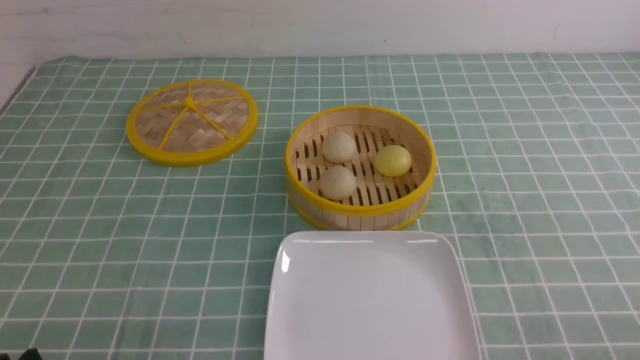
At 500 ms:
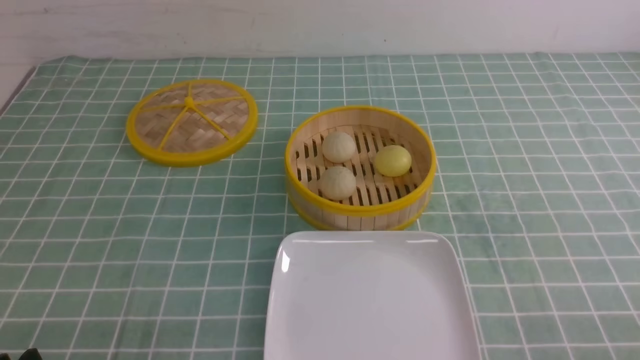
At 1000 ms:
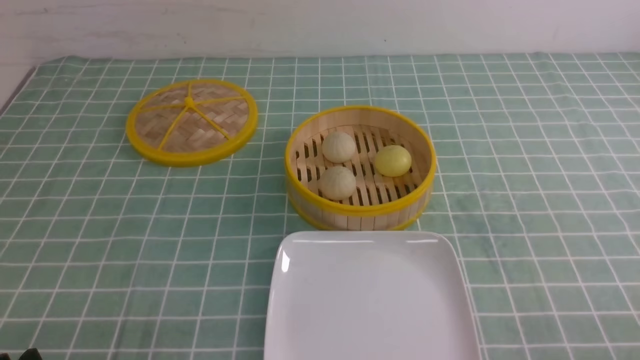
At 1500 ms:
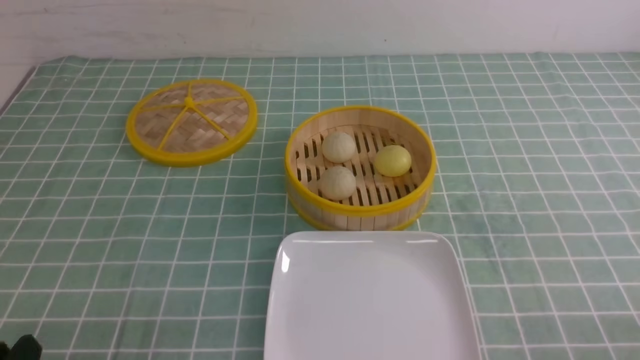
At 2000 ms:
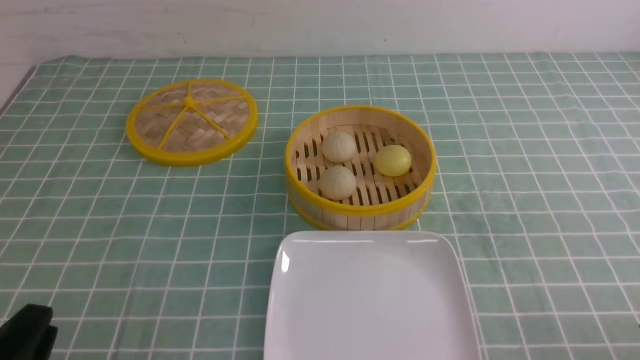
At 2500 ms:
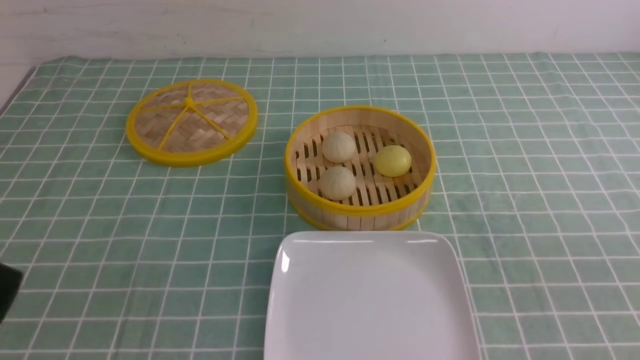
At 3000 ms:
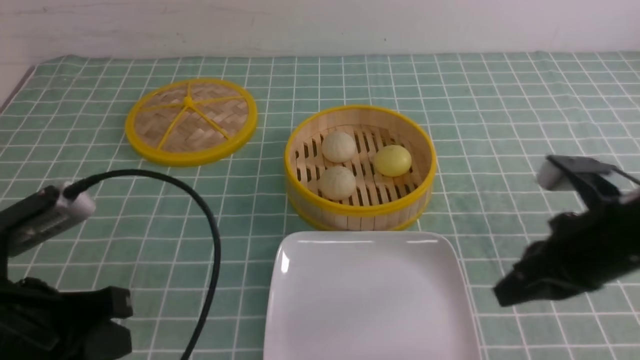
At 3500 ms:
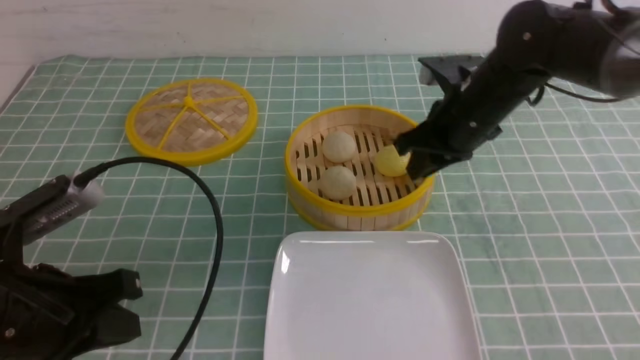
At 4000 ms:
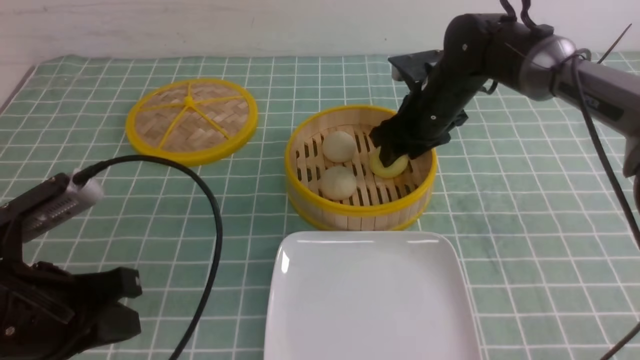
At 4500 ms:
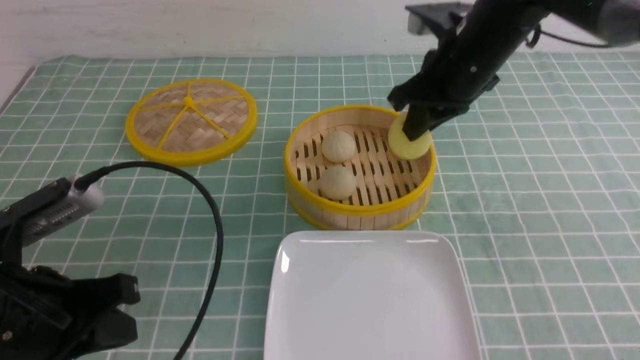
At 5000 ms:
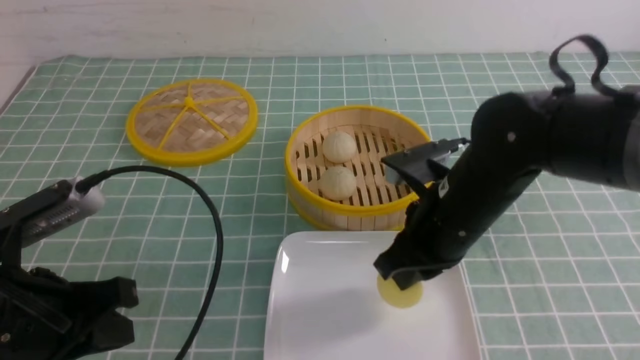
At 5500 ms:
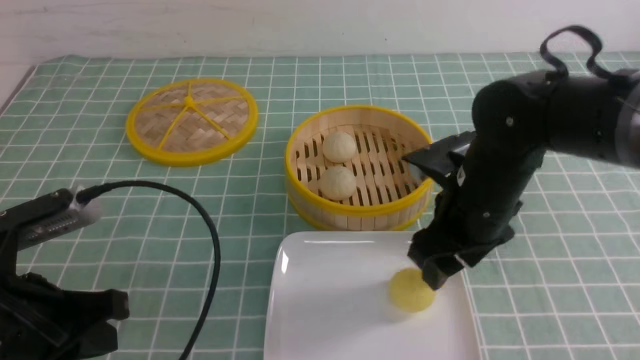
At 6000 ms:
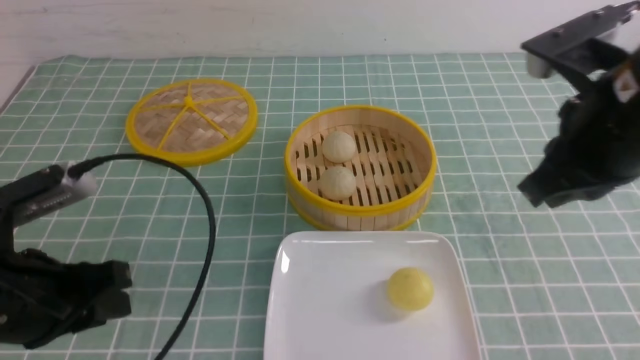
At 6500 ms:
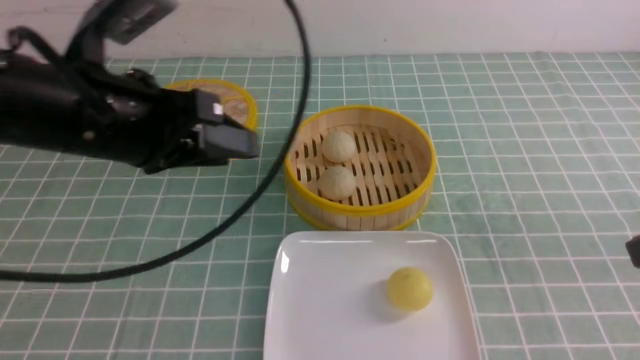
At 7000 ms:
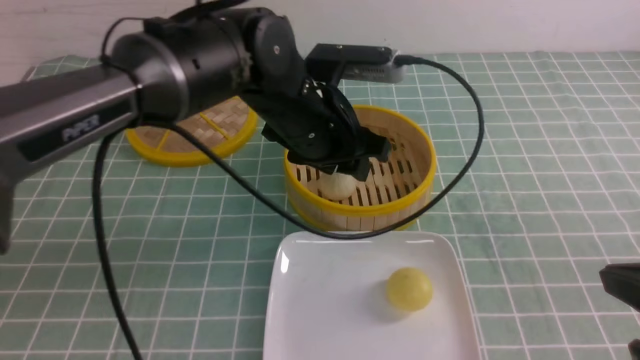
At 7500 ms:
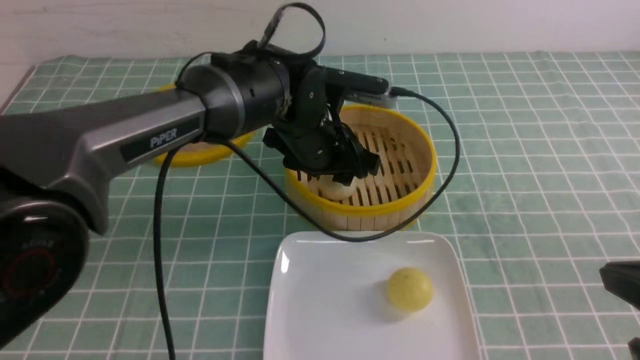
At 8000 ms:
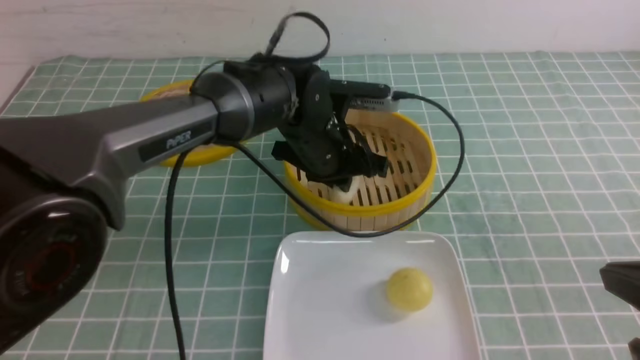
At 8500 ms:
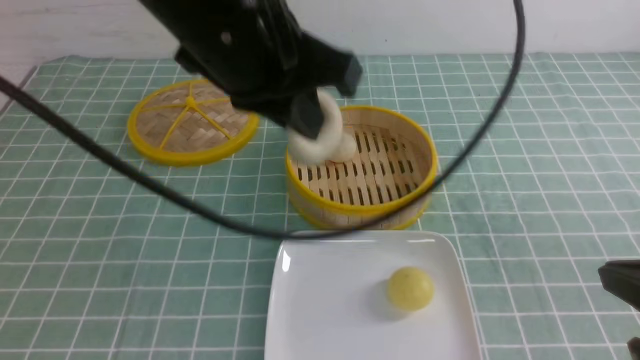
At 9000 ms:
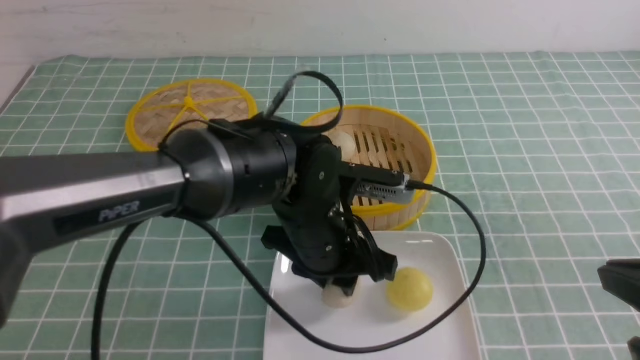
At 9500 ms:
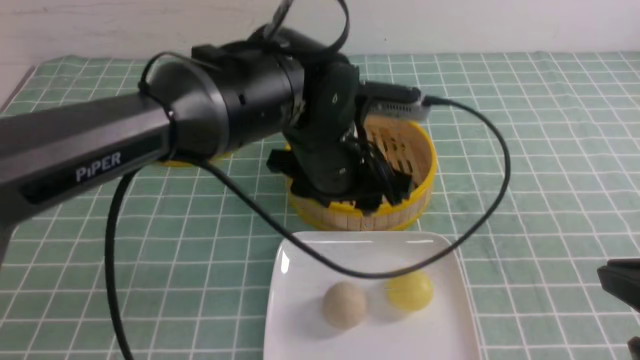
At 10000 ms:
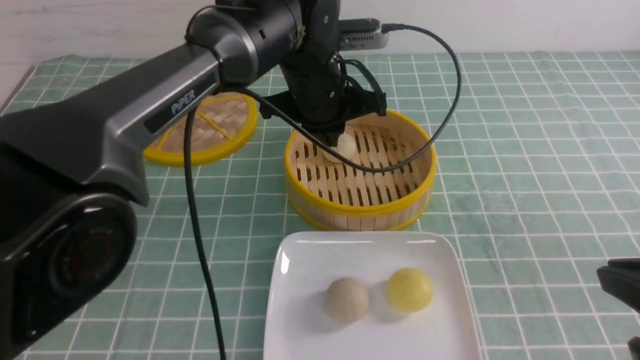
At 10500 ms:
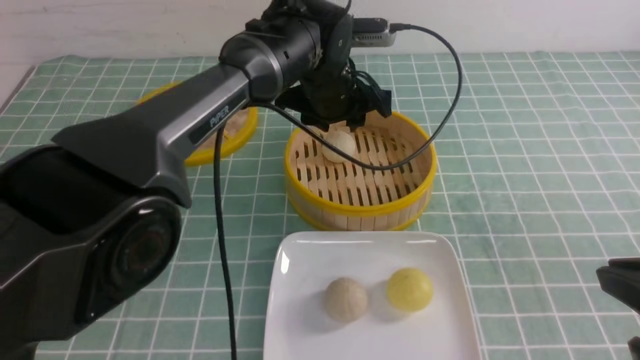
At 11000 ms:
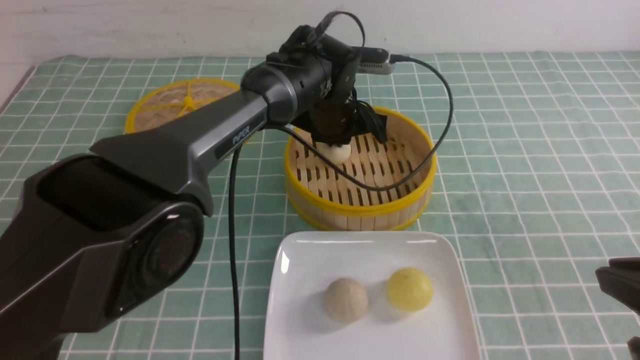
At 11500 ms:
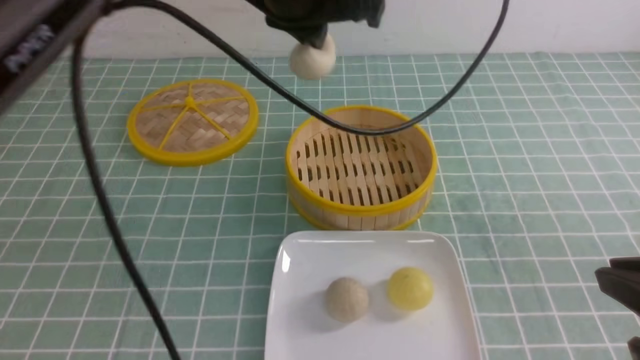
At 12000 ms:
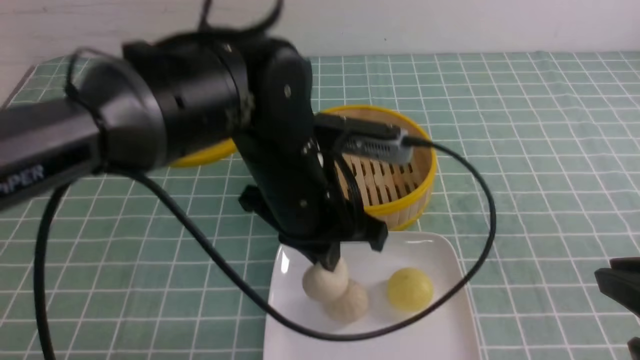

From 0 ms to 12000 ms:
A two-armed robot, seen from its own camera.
Step, from 0 ms to 4000 ms: use the right arm to grab the steamed stuffed bun that is closest to it.
Step, from 4500 ms to 5000 ms: use the right arm to put the steamed stuffed bun into the plate.
Step, from 5500 ms to 7500 ms: use the left arm to grab the steamed stuffed bun that is closest to it.
Step, from 8000 ms to 9000 ms: use the left arm to put the steamed stuffed bun into the plate.
Step, from 9500 ms to 11000 ms: use the left arm to grab the steamed stuffed bun that is closest to it.
From 2000 ms to 4000 ms: The right gripper shifts roughly 40 cm forward and to the left, and closes, then opens again. Meanwhile the left gripper heads forward and upward, covering roughly 10 cm, and closes up.
From 4000 ms to 6000 ms: The left gripper opens up. The right gripper travels backward and upward by approximately 30 cm, and closes up.
From 6000 ms to 8000 ms: The right gripper travels backward, downward and to the right by some 15 cm. The left gripper heads to the right and forward, covering some 30 cm, and opens, then closes once more.
From 8000 ms to 10000 ms: The left gripper goes up and down, about 15 cm each way, reversing 2 times, and opens and closes again.
From 10000 ms to 12000 ms: The left gripper swings up and down, roughly 15 cm each way, with 2 reversals, and opens, then closes again.

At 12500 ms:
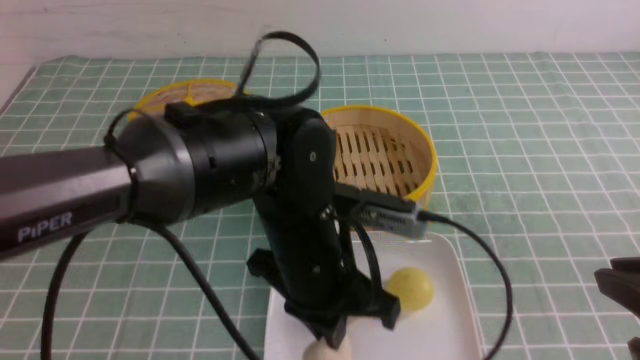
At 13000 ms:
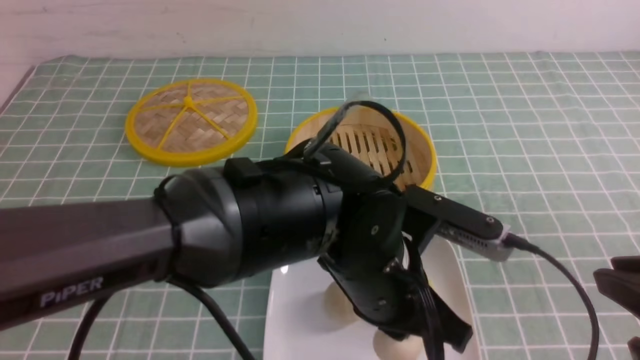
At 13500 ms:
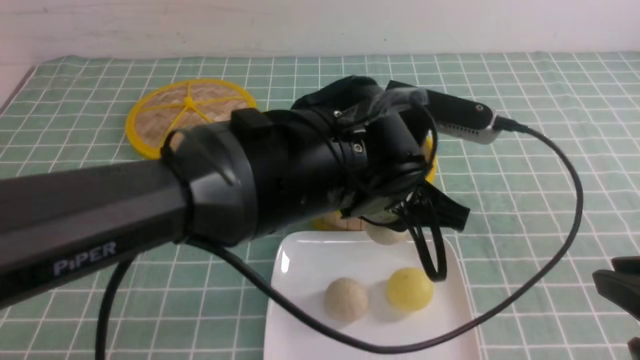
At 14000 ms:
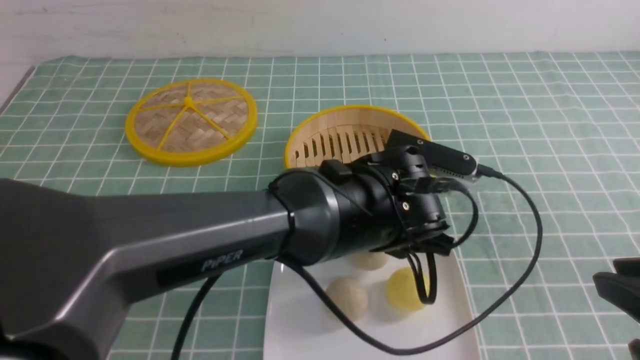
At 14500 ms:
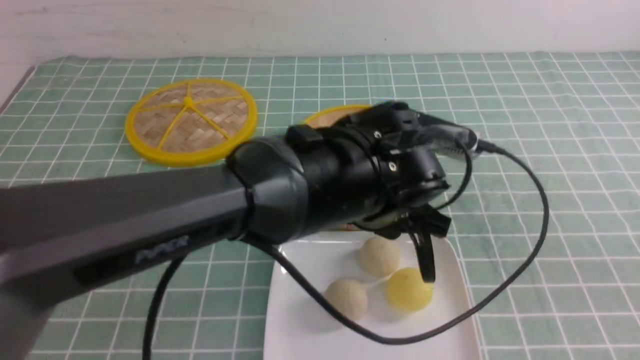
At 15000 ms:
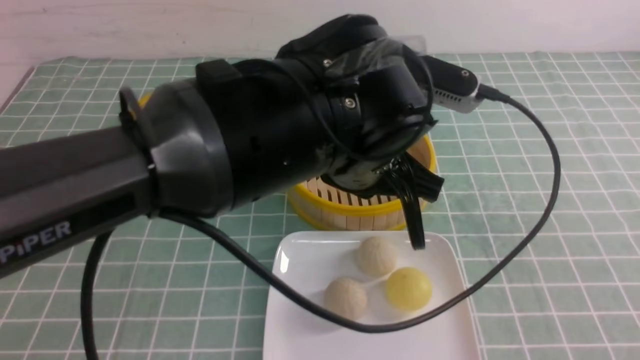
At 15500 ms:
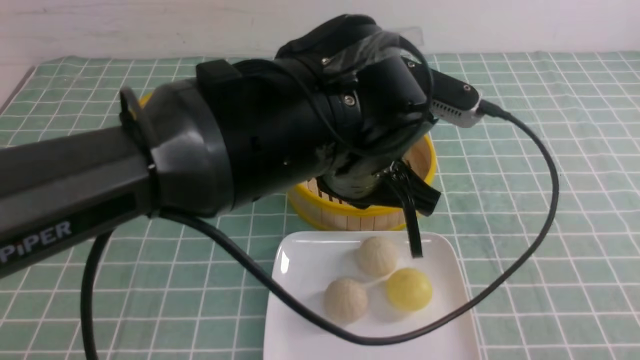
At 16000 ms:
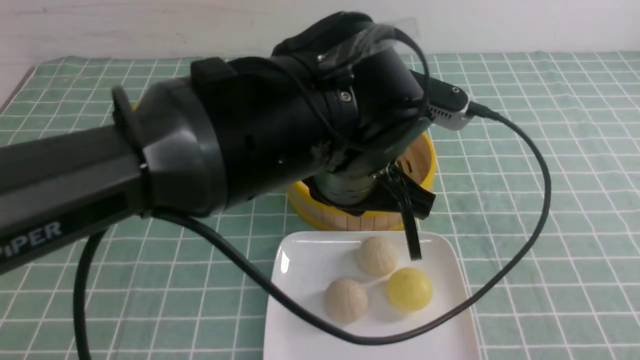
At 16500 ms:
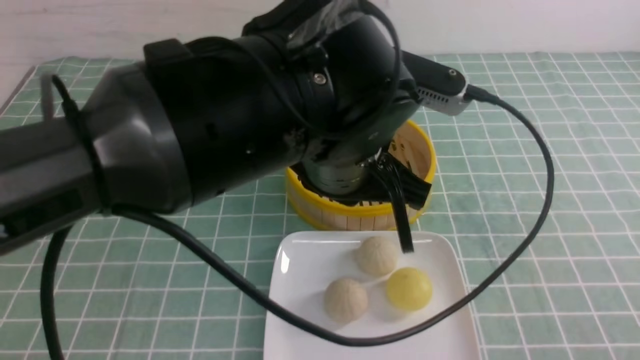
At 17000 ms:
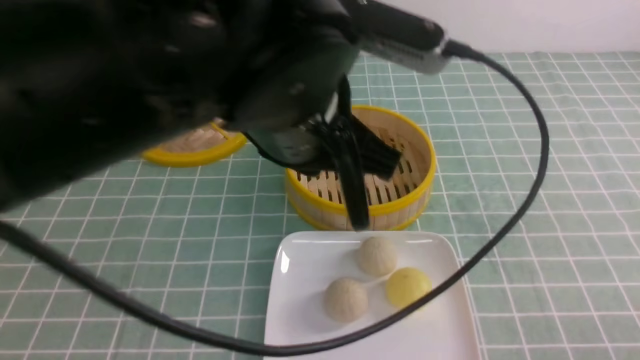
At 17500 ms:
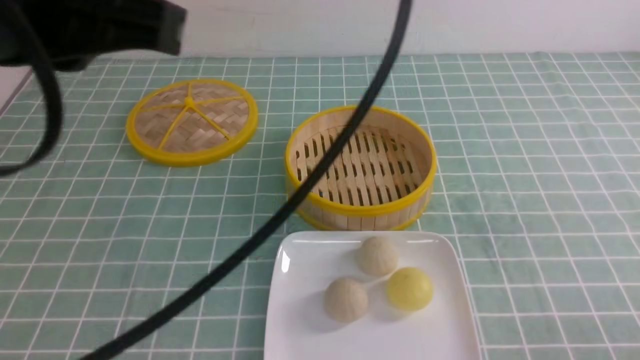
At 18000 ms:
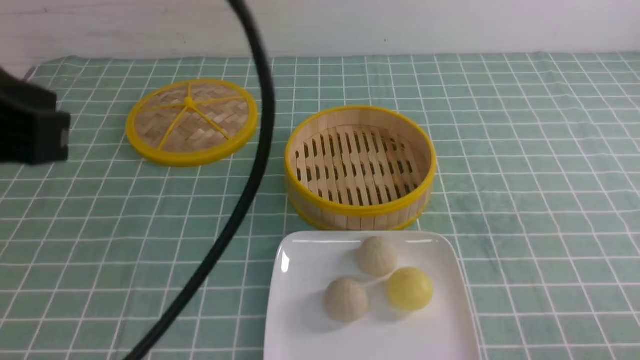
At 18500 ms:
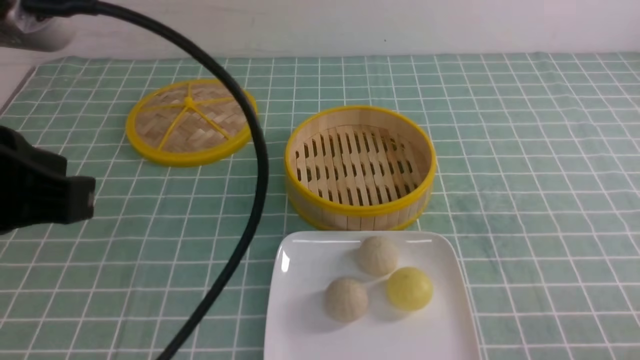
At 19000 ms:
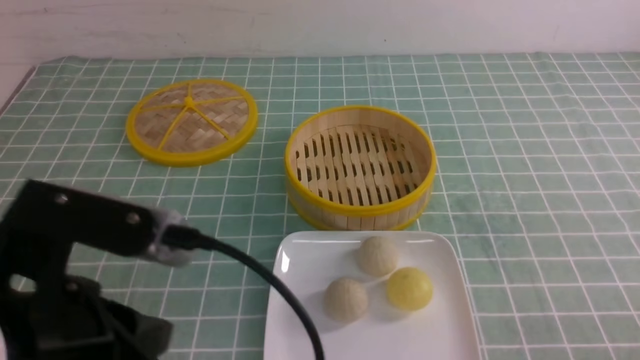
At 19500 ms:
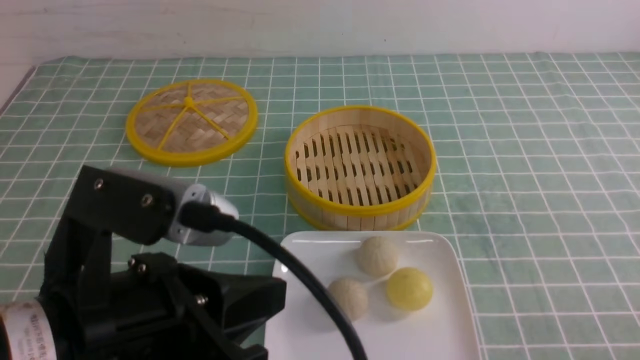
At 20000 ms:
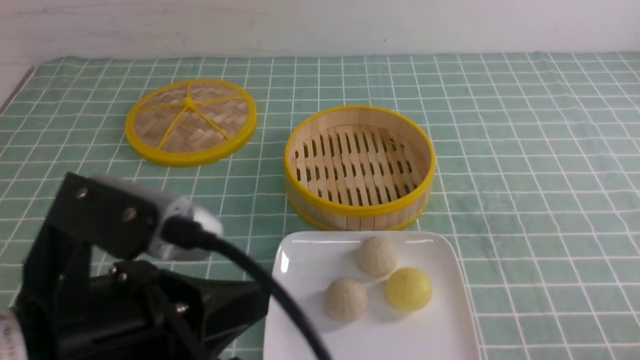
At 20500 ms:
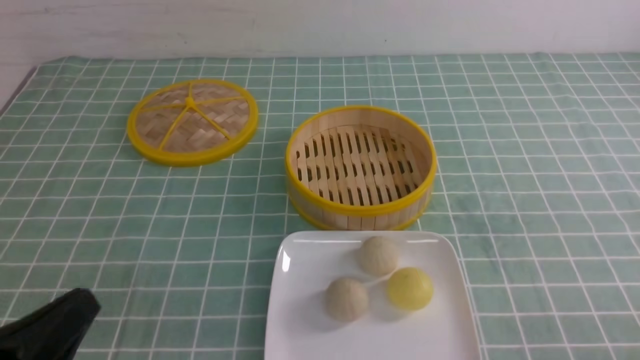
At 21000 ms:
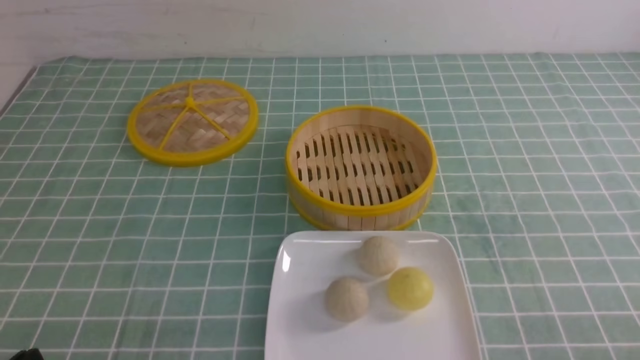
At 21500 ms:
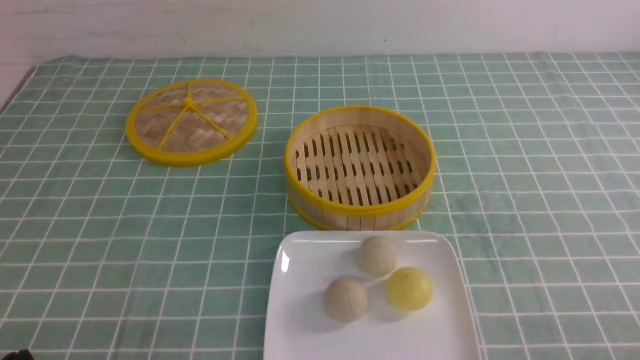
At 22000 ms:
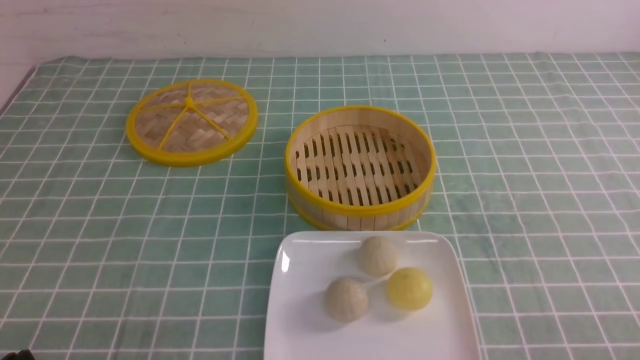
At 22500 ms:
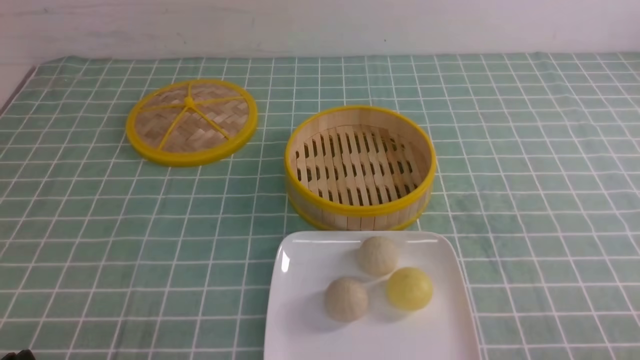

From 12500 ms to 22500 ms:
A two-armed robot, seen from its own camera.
Step, from 12500 ms to 14000 ms: use the left arm to put the steamed stuffed bun into the plate.
From 12500 ms to 14500 ms: The right gripper shifts by about 5 cm, while the left gripper moves roughly 5 cm, and opens up.
From 14500 ms to 16500 ms: The right gripper shifts some 10 cm downward and backward; the left gripper moves upward, roughly 5 cm, and closes up.
From 16500 ms to 18500 ms: The left gripper travels to the left and backward by roughly 25 cm. Meanwhile the right gripper shifts roughly 5 cm downward.
From 18500 ms to 20500 ms: The left gripper goes roughly 15 cm downward.
From 20500 ms to 22500 ms: The left gripper is displaced downward by approximately 5 cm.
